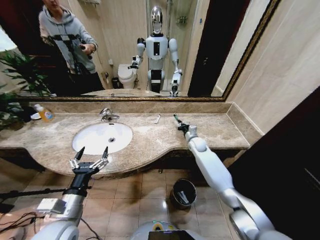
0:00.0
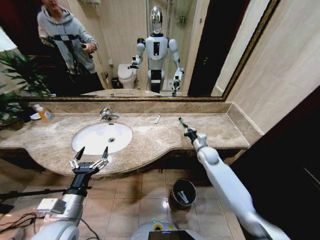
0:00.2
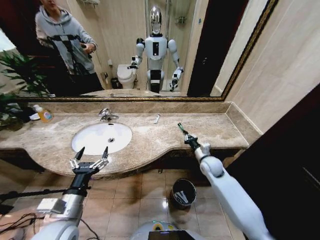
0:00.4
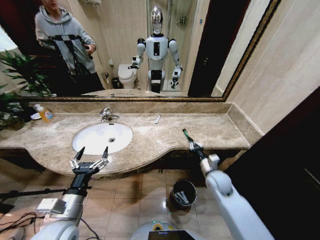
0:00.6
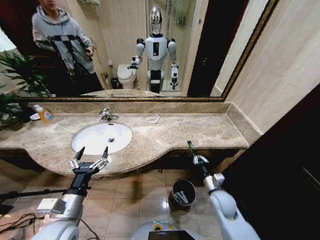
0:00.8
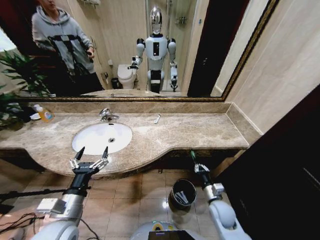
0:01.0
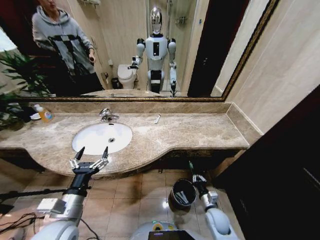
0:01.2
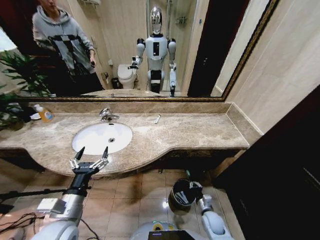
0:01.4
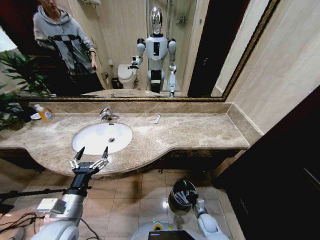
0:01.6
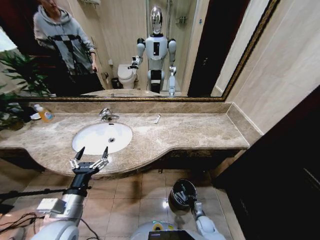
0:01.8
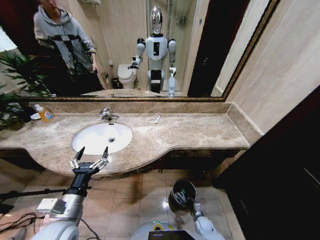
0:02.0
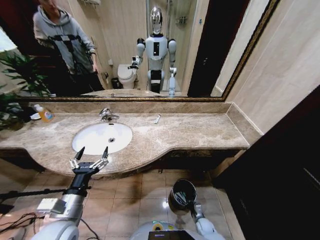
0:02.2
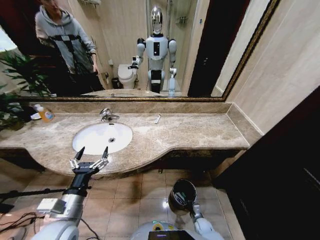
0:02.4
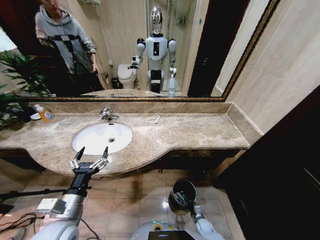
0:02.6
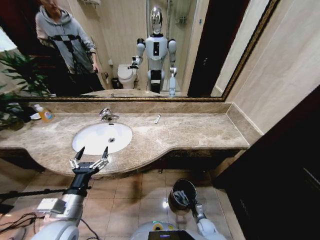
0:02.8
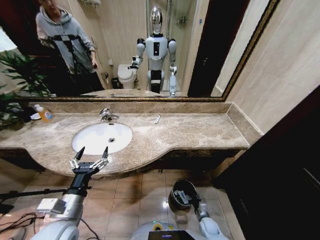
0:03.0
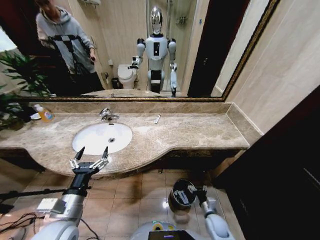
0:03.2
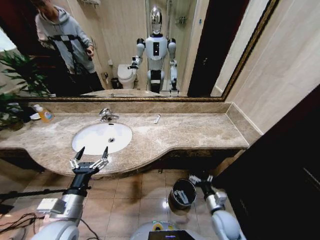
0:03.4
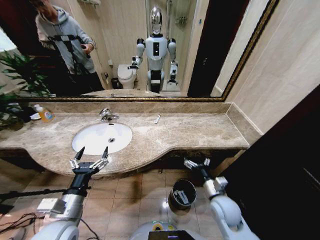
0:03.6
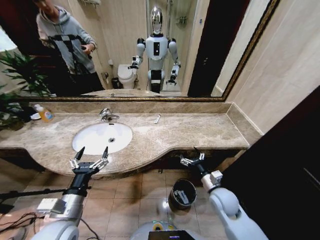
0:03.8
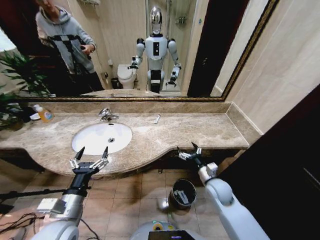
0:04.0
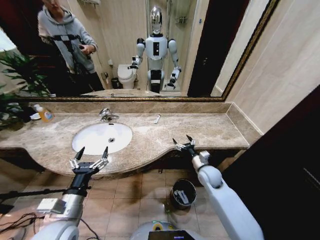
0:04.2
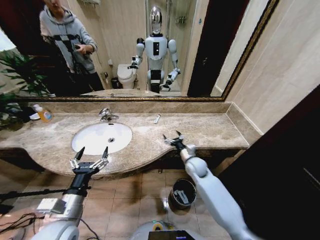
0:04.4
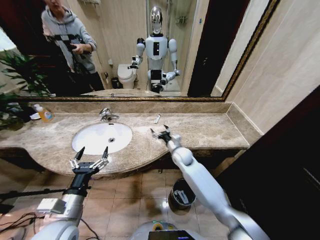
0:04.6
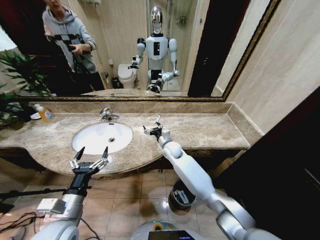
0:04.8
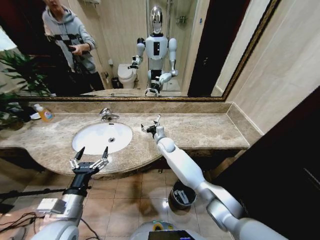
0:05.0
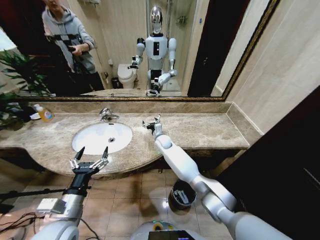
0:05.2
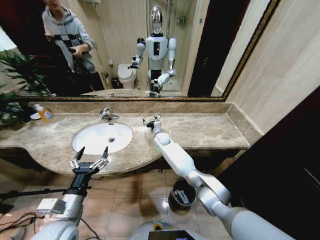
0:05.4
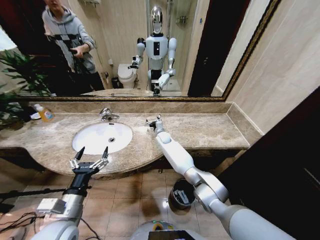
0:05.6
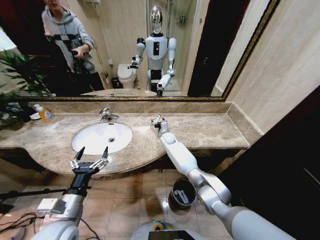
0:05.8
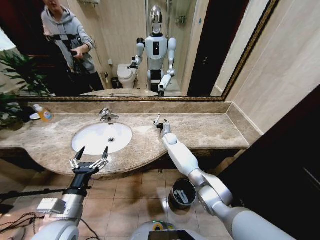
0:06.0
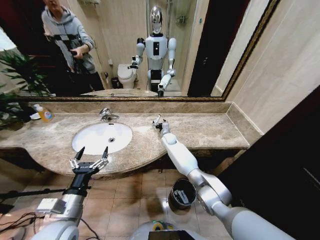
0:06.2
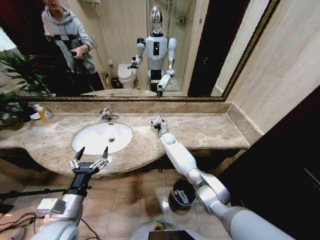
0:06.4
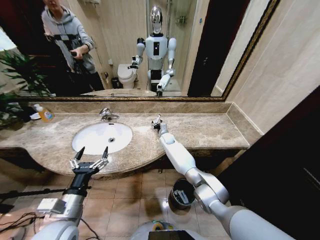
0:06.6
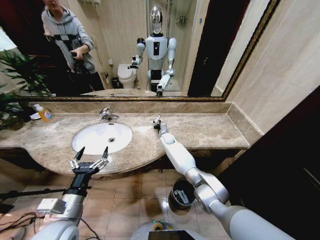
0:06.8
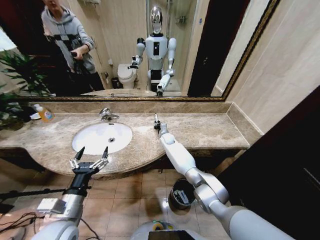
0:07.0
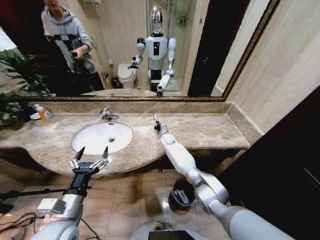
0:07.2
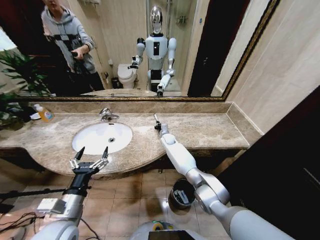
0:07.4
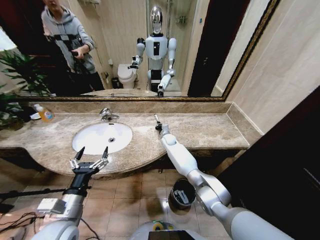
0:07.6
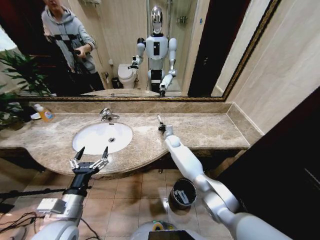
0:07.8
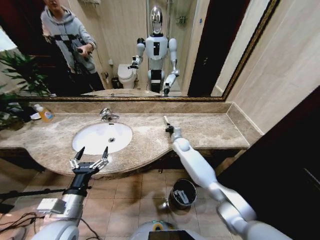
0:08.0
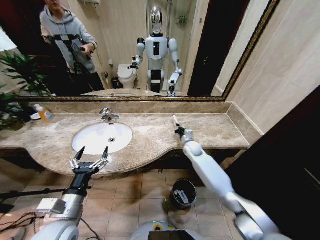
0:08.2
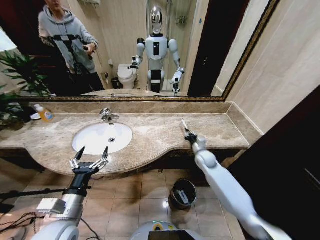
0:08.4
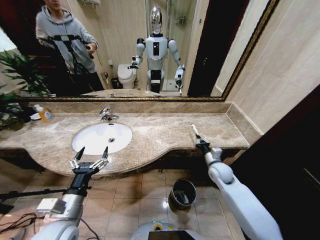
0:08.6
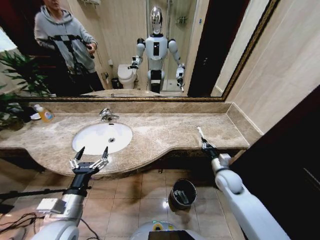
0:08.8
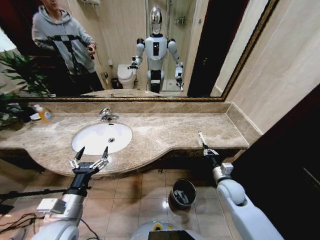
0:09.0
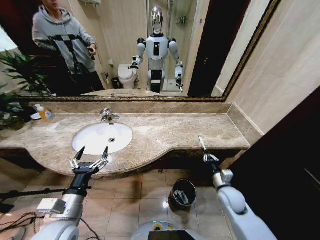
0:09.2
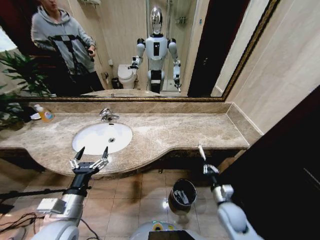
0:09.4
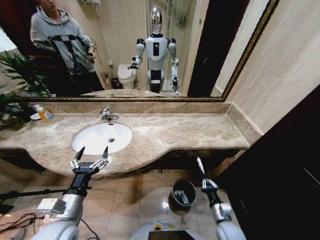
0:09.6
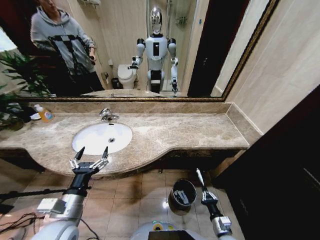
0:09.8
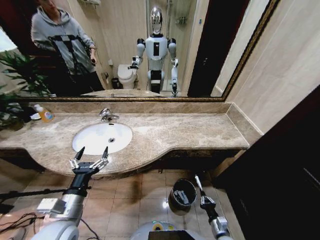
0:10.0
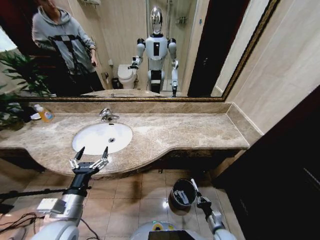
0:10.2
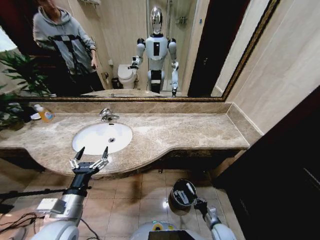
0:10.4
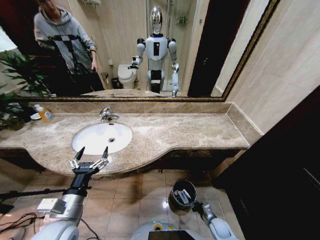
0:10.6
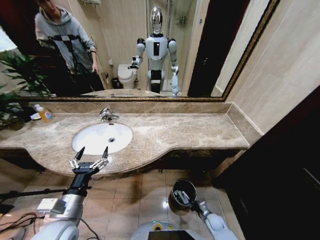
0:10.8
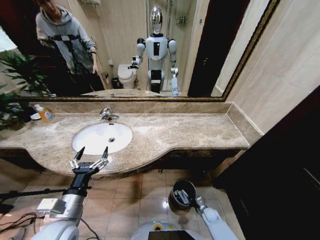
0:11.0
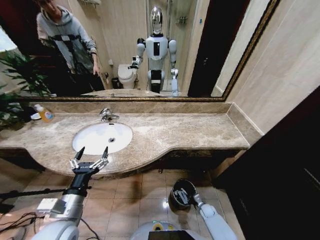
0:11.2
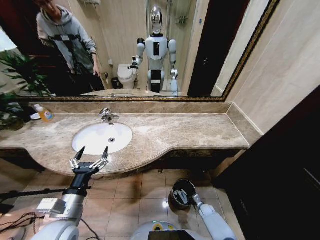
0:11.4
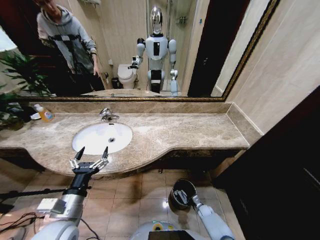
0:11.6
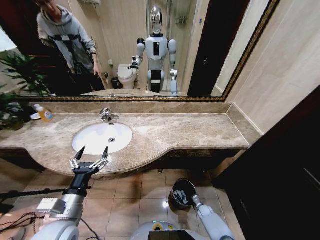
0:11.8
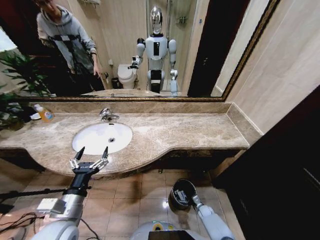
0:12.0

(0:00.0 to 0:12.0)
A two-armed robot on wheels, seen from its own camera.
Task of the whole recording: Pick up the trash from the sink and place it in the trash bin.
0:00.0 - 0:01.6: The right gripper moves backward and downward, roughly 40 cm.
0:01.6 - 0:03.0: The right gripper moves about 10 cm downward and comes back, and opens.
0:03.0 - 0:04.4: The right gripper is displaced upward and forward by about 35 cm, and opens.
0:04.4 - 0:06.0: The right gripper moves forward and to the left, approximately 20 cm.
0:06.0 - 0:07.6: The right gripper closes up.
0:07.6 - 0:09.0: The right gripper heads backward and to the right, covering approximately 40 cm.
0:09.0 - 0:10.4: The right gripper heads downward and backward, covering roughly 25 cm.
0:10.4 - 0:12.0: The right gripper goes about 15 cm downward and forward.

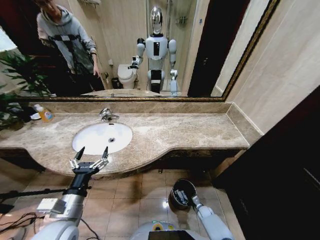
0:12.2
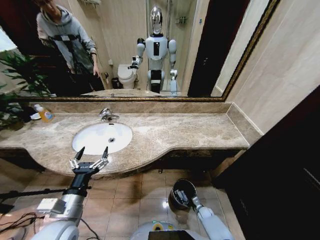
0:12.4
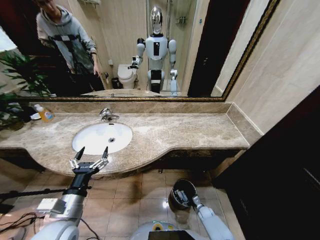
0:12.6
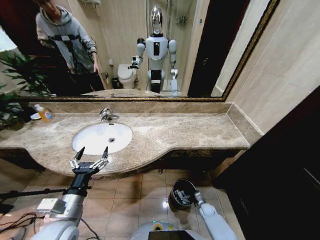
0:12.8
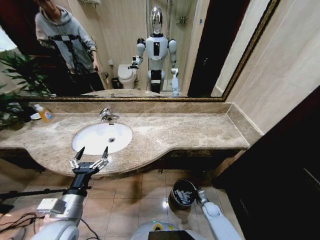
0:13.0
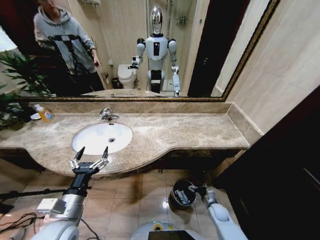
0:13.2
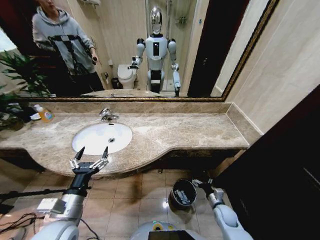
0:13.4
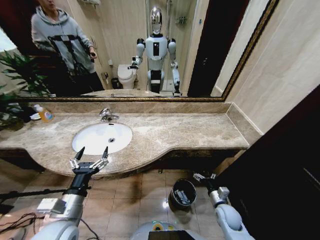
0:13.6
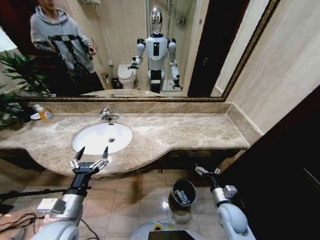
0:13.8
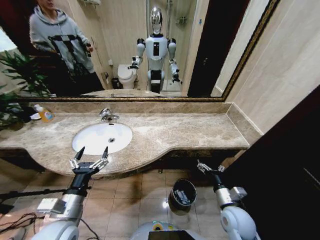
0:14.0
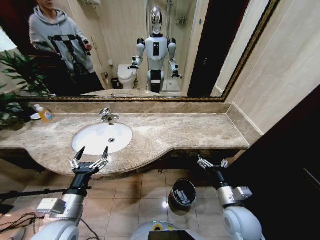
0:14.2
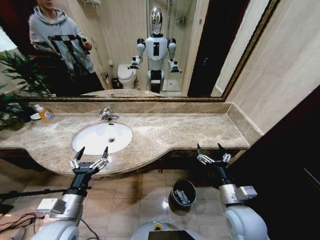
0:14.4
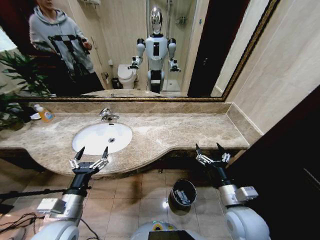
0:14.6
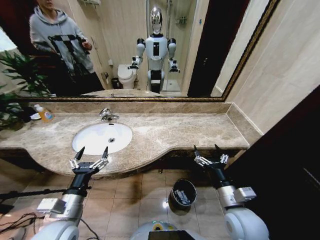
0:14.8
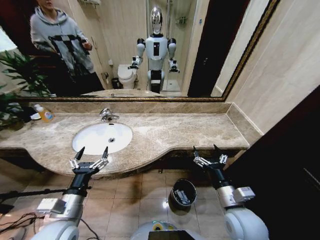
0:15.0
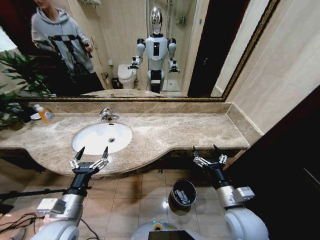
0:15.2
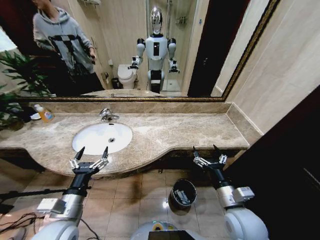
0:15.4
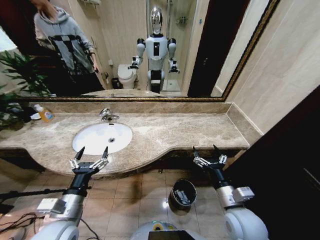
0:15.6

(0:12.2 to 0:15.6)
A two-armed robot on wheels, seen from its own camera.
Task of the whole recording: Pick up the trash from the sink and place it in the trash bin.
0:12.2 - 0:13.8: The right gripper heads upward, covering about 30 cm, and opens.
0:13.8 - 0:15.6: The right gripper moves upward, some 15 cm.
